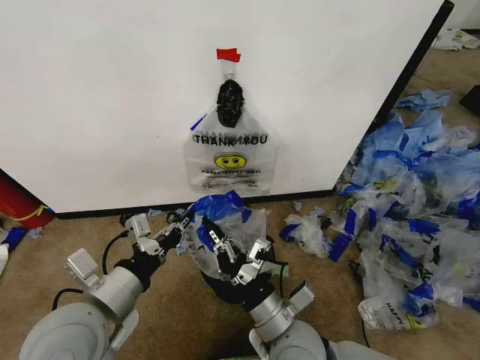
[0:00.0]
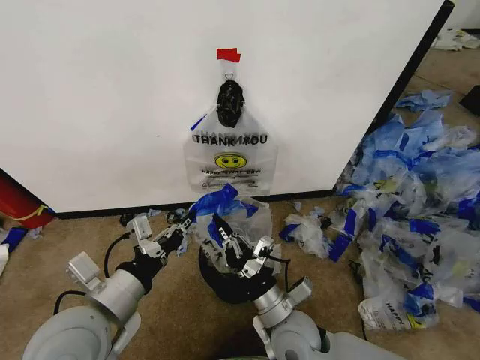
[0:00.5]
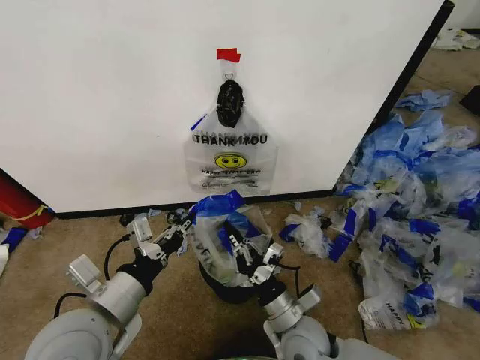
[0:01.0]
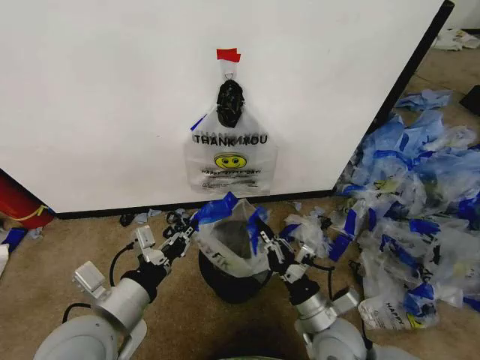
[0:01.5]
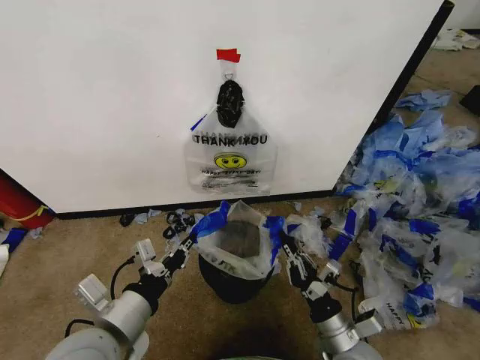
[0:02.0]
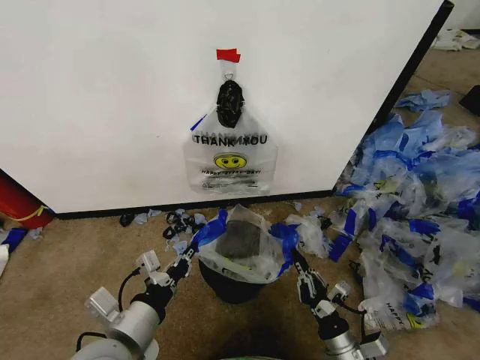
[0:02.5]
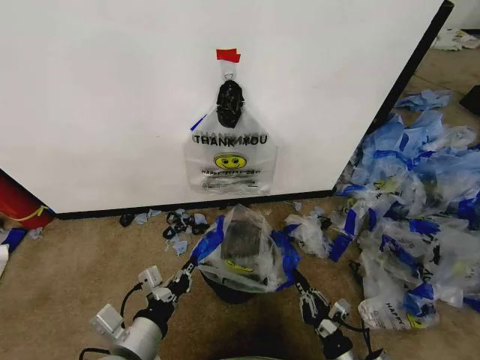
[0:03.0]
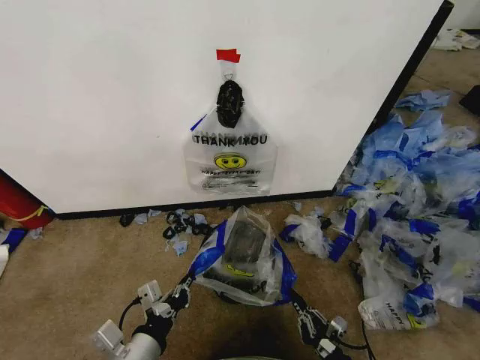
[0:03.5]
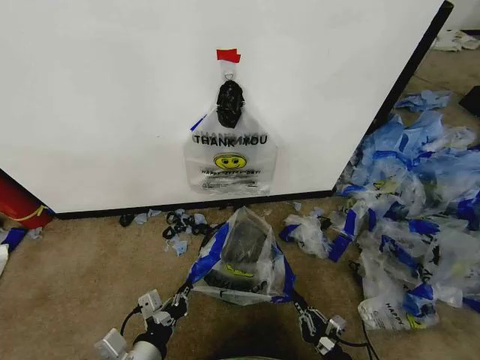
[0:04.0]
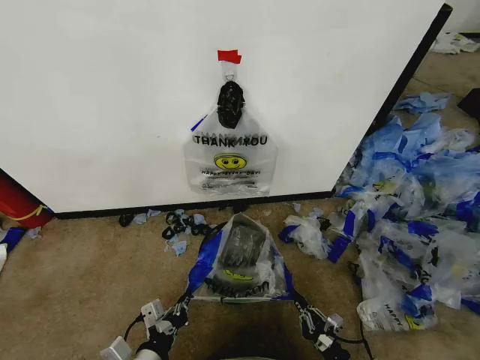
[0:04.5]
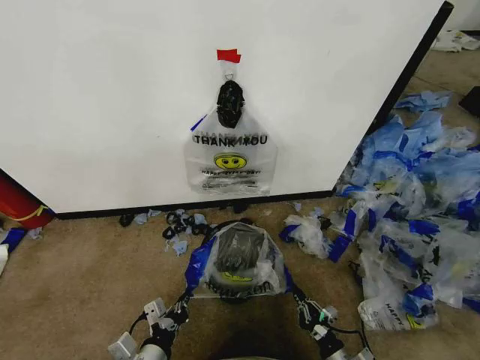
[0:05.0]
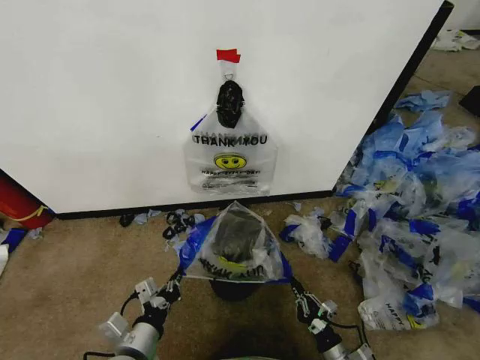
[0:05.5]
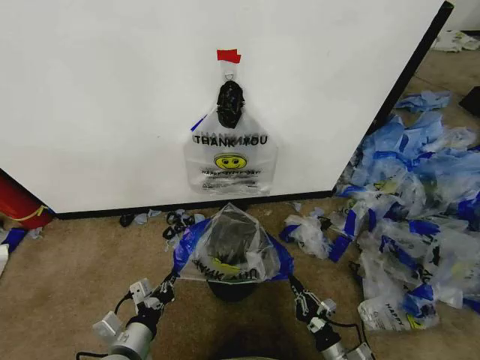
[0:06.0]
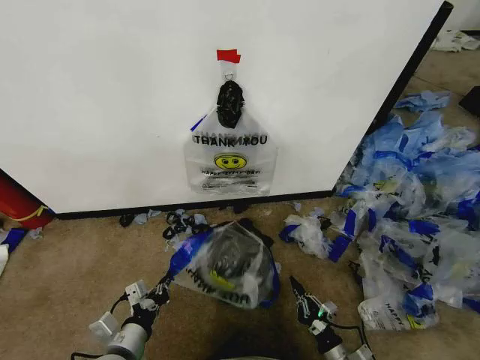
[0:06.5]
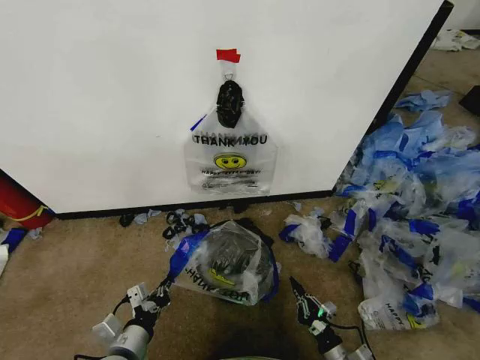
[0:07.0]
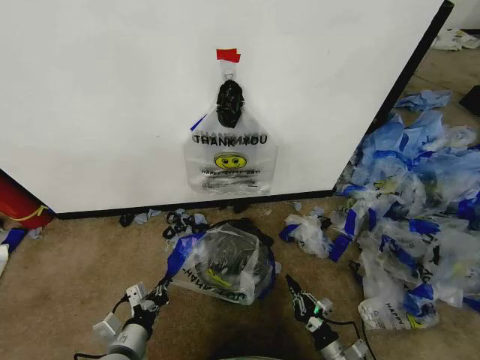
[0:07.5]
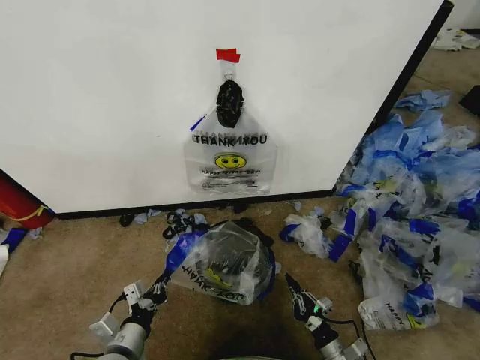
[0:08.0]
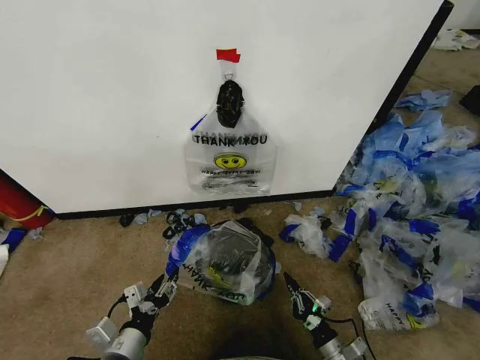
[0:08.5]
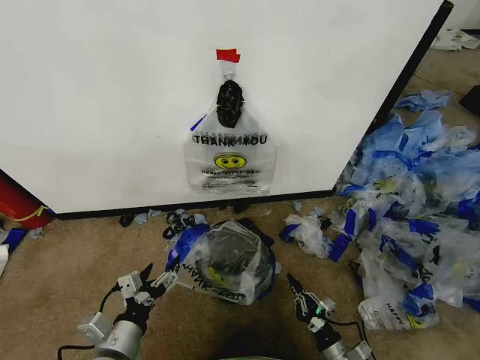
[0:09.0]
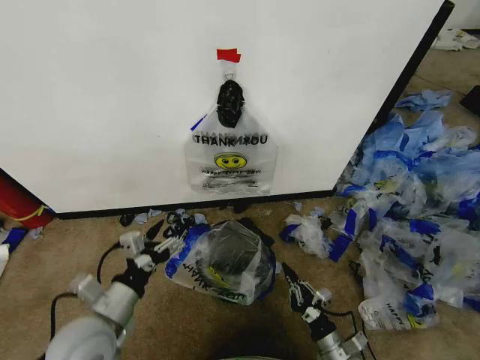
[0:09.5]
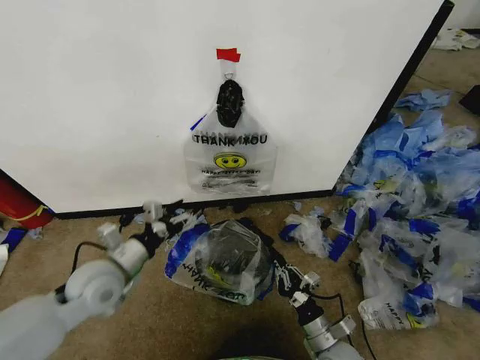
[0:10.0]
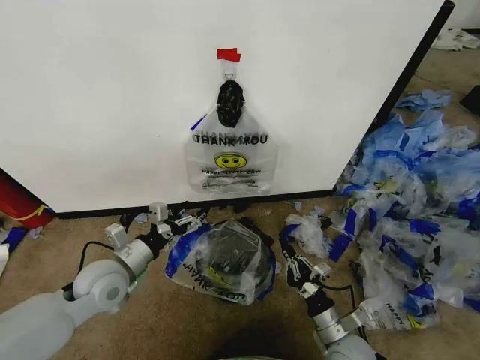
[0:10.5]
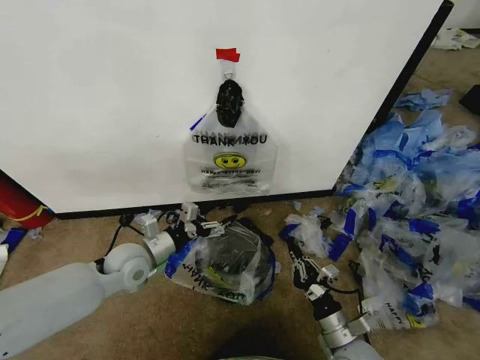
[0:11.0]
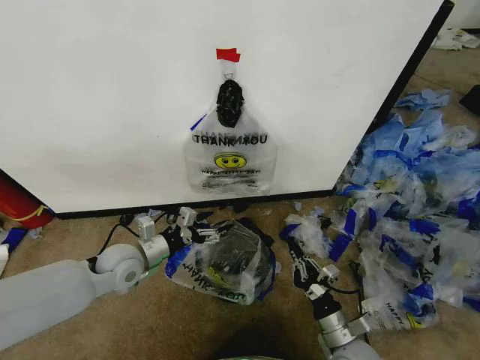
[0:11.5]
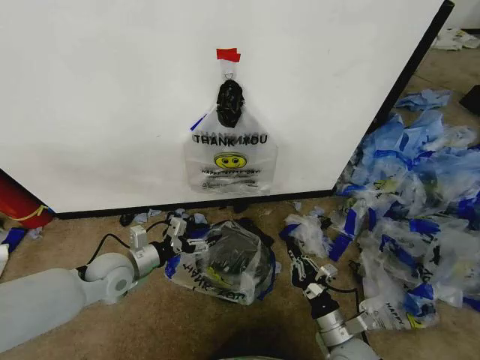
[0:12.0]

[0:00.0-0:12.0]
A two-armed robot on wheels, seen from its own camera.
Task of the whole recording: Pick up the garbage bag from the wall and place it over the trash bin.
0:00.0 to 0:02.0: The right gripper shifts approximately 15 cm to the right and downward.
0:02.0 to 0:04.0: The right gripper shifts some 15 cm downward, backward and to the right, while the left gripper is displaced downward by roughly 10 cm.
0:04.0 to 0:06.0: The right gripper ends up approximately 5 cm from where it was; the left gripper shifts by some 5 cm.
0:06.0 to 0:08.0: The grippers stay close to where they were, moving slightly.
0:08.0 to 0:10.0: The right gripper moves upward and to the left, some 10 cm. The left gripper heads forward and upward, covering some 20 cm, and opens its fingers.
0:10.0 to 0:12.0: The left gripper shifts approximately 5 cm downward.

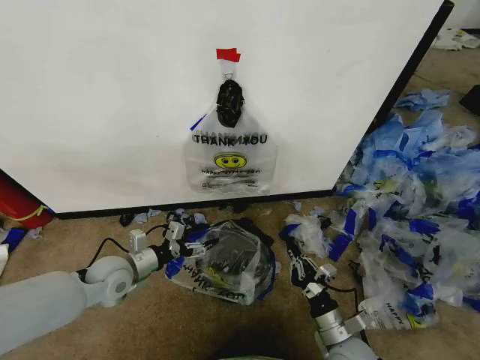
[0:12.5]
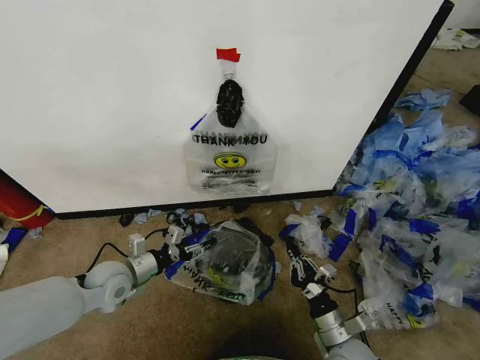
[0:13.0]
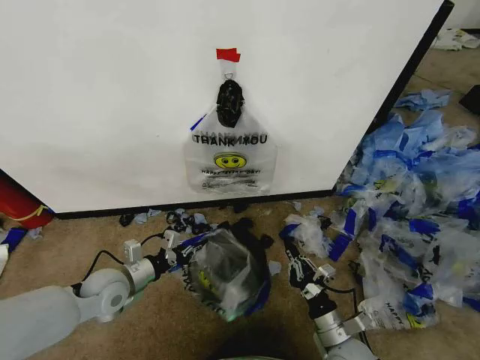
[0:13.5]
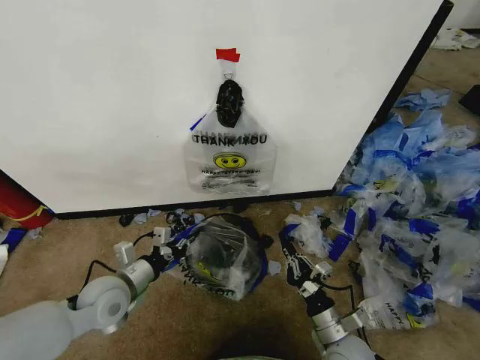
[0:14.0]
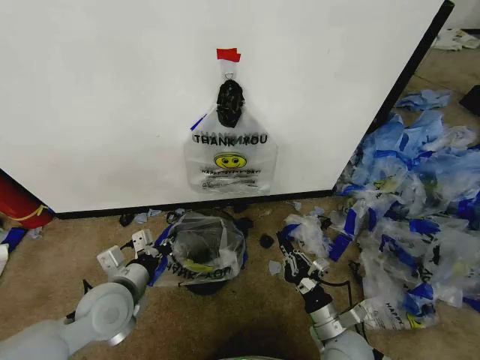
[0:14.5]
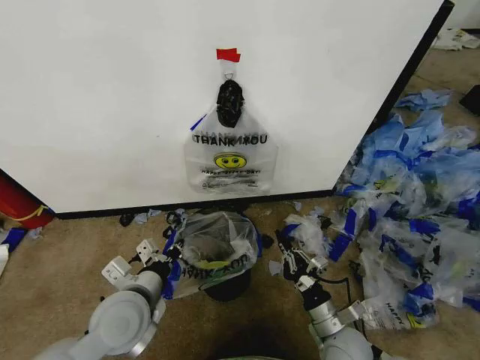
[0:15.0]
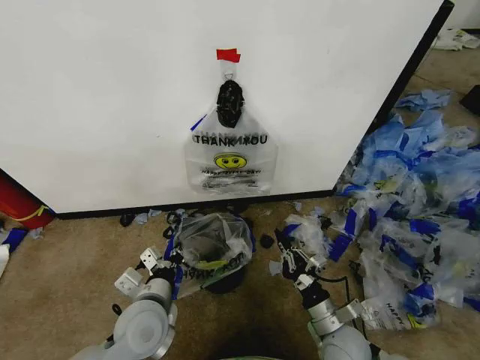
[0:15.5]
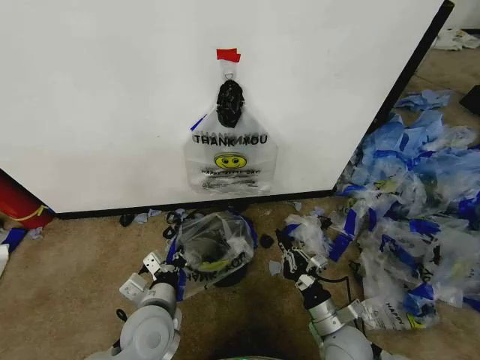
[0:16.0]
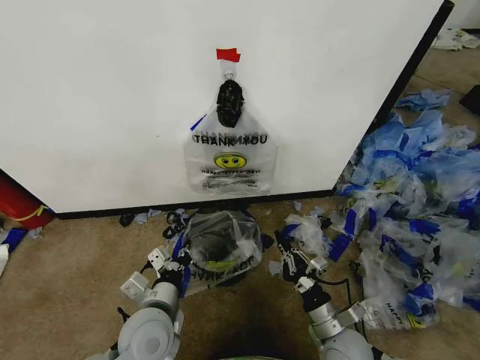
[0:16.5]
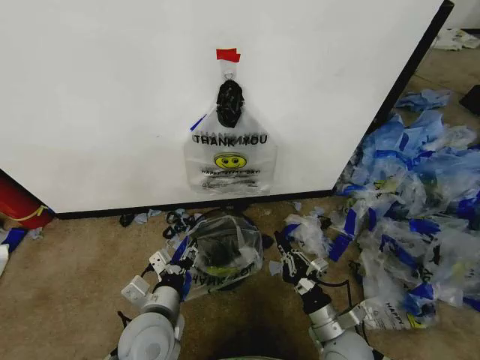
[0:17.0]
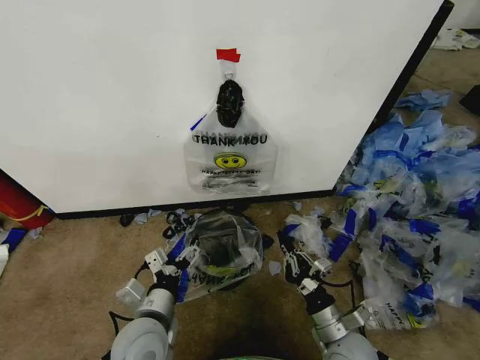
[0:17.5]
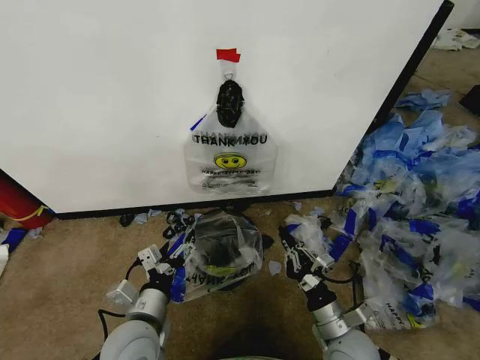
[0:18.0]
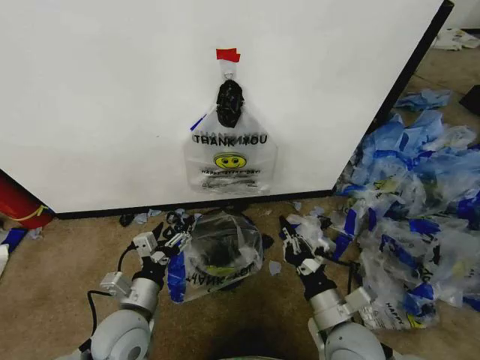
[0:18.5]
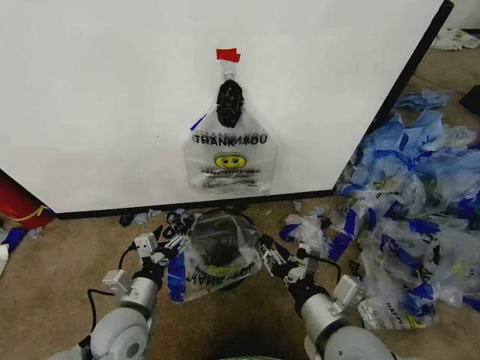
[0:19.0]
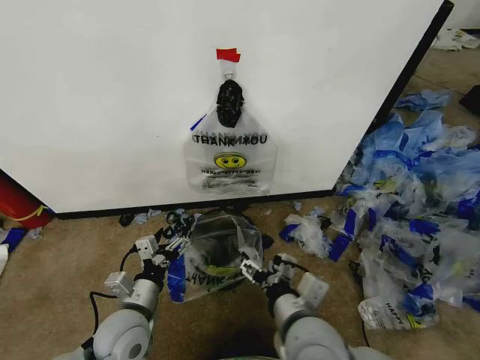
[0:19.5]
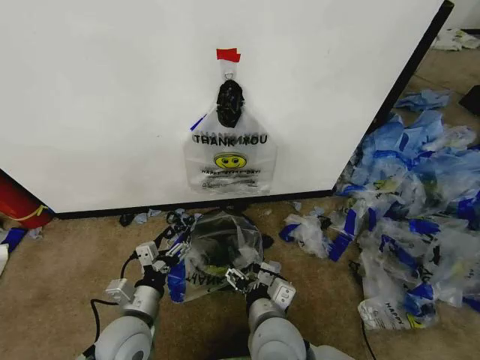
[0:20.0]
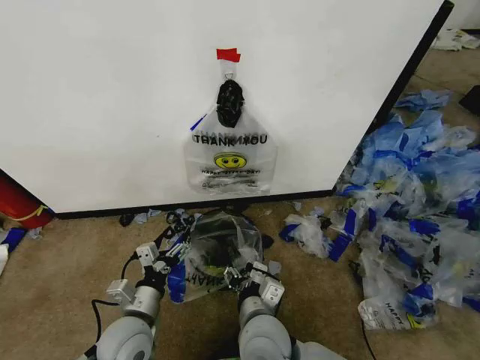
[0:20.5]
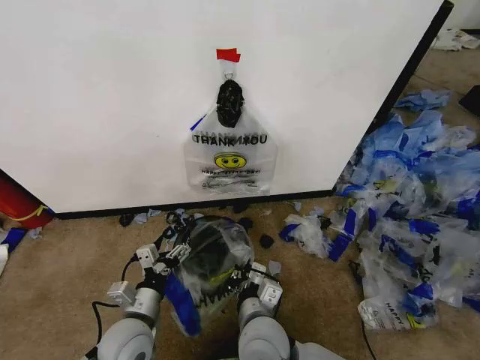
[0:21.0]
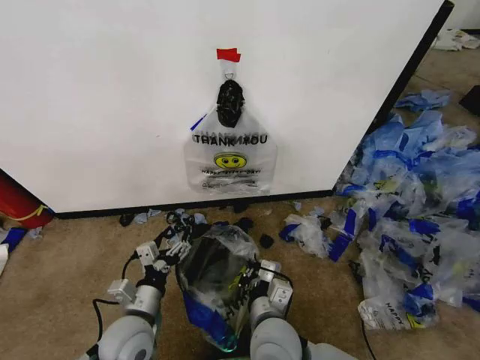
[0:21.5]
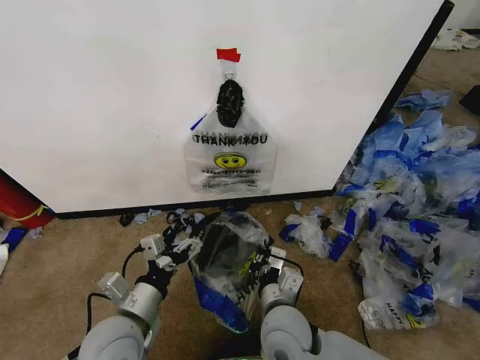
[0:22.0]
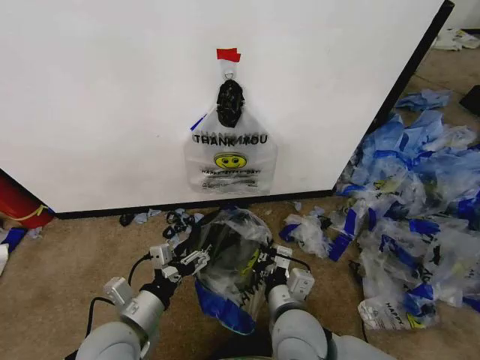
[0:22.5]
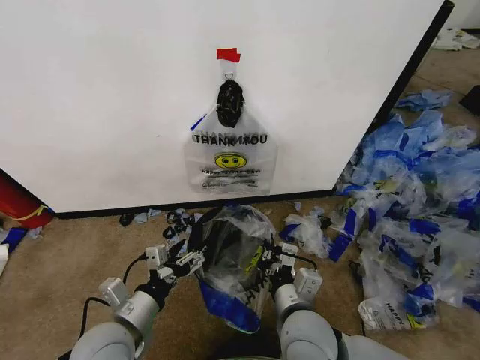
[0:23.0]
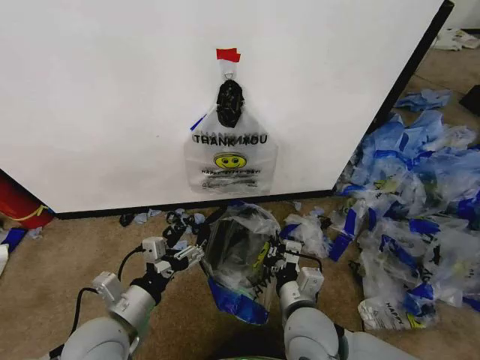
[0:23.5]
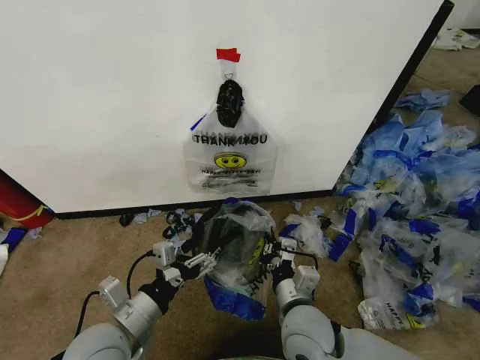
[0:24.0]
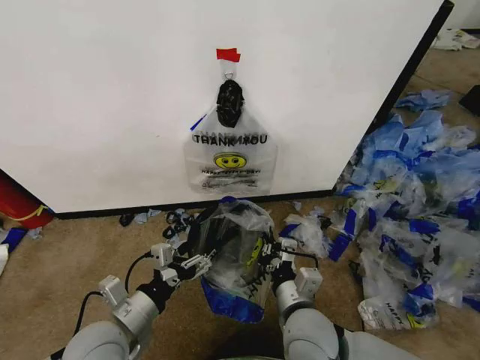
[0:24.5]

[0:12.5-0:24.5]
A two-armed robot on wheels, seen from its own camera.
Task of the whole recording: Pick up the garbage bag from the wall and place it over the trash bin.
0:12.5 to 0:14.5: The left gripper heads backward, covering about 10 cm, and closes its fingers.
0:14.5 to 0:16.5: The left gripper is displaced to the right by some 10 cm.
0:16.5 to 0:18.5: The right gripper travels upward by approximately 10 cm. The left gripper opens its fingers.
0:18.5 to 0:20.5: The right gripper goes approximately 15 cm to the left, and opens its fingers.
0:20.5 to 0:22.5: The right gripper goes roughly 5 cm to the right, and closes its fingers. The left gripper heads upward, covering roughly 5 cm.
0:22.5 to 0:24.5: The grippers move only a little.

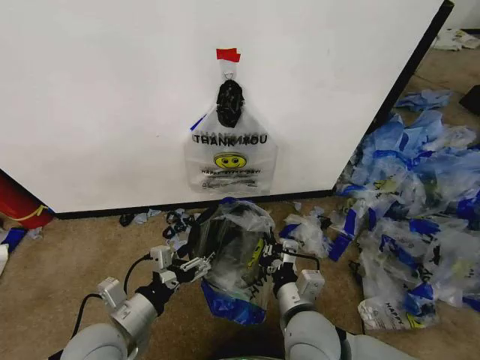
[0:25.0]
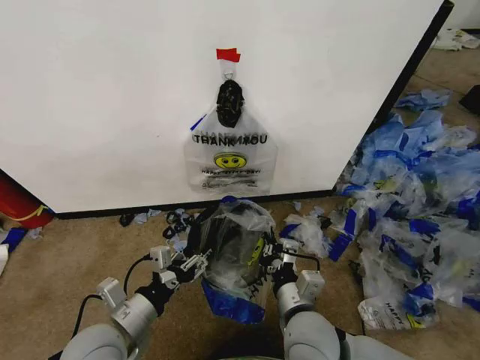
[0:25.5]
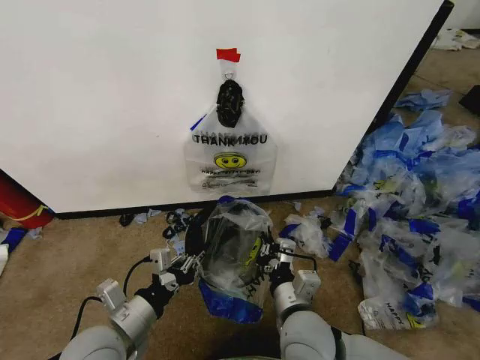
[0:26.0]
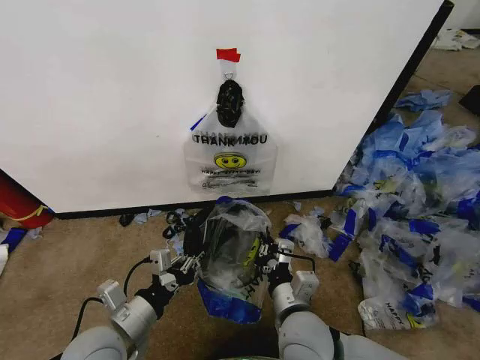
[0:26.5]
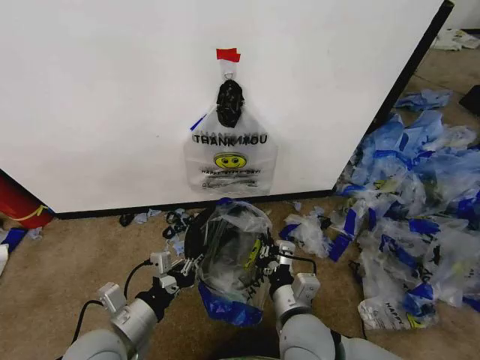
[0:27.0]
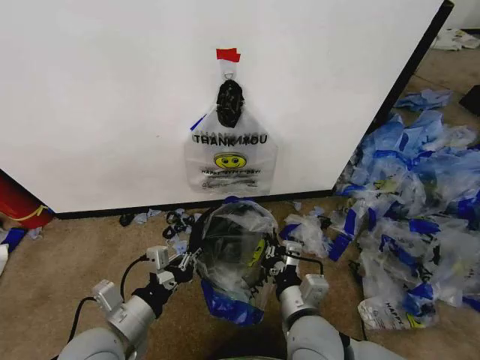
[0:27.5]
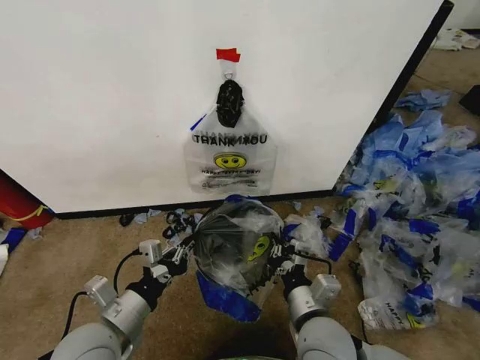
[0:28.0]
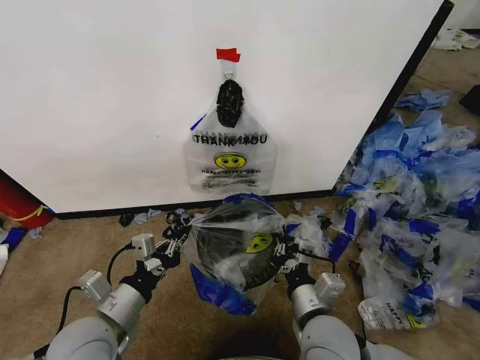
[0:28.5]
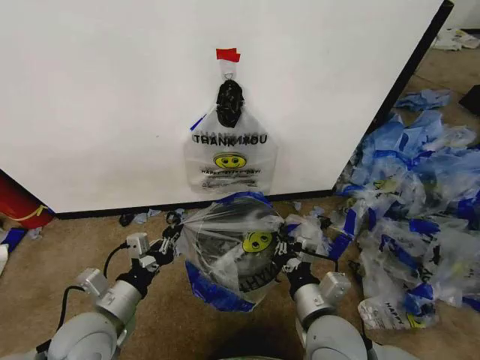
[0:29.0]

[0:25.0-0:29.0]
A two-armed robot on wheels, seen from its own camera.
Task of the whole recording: Pick up the garbage bag from the wall and place it over the trash bin.
0:25.0 to 0:27.0: The left gripper closes up.
0:27.0 to 0:29.0: The grippers make only small movements.
